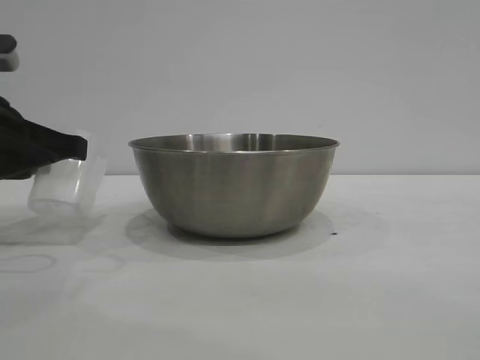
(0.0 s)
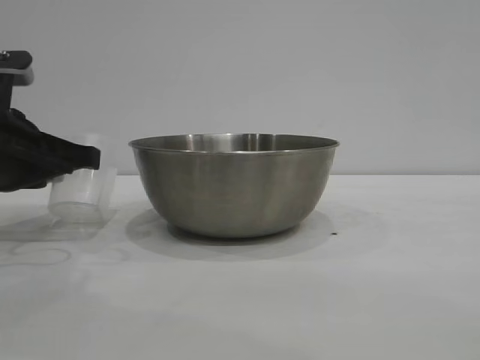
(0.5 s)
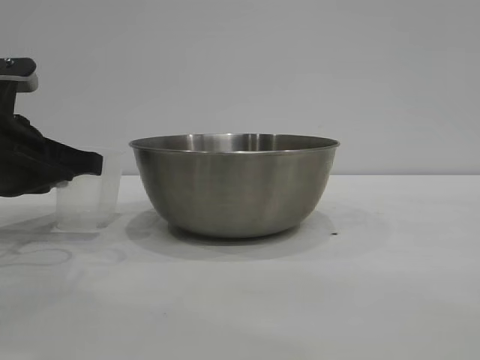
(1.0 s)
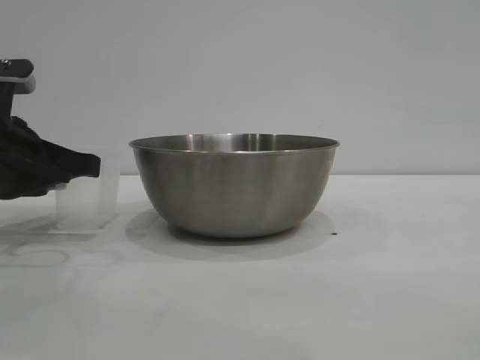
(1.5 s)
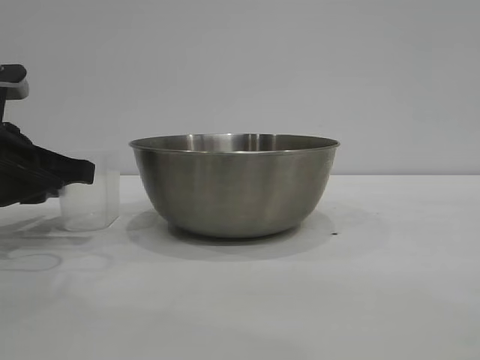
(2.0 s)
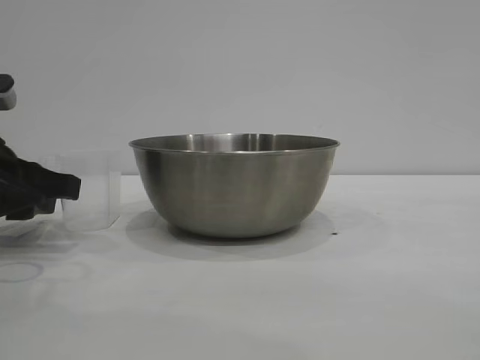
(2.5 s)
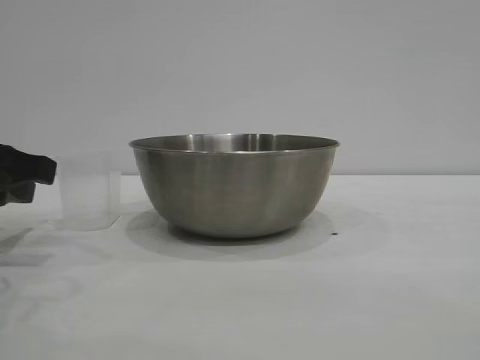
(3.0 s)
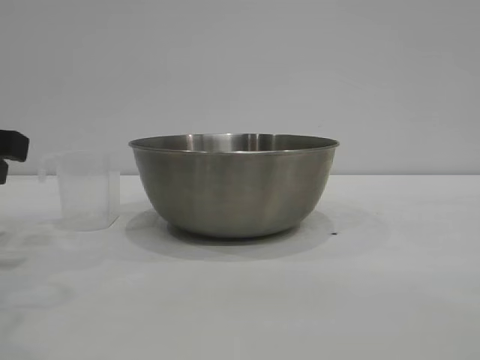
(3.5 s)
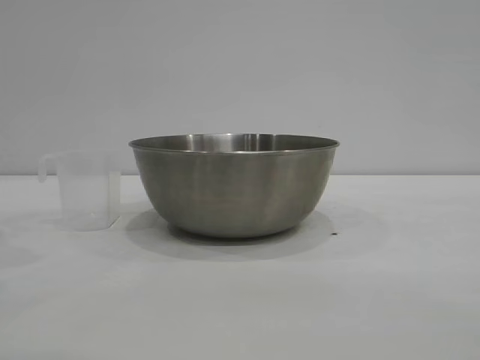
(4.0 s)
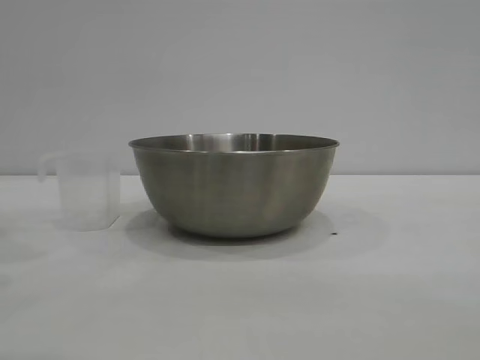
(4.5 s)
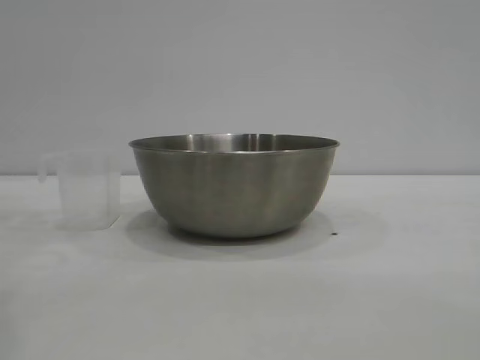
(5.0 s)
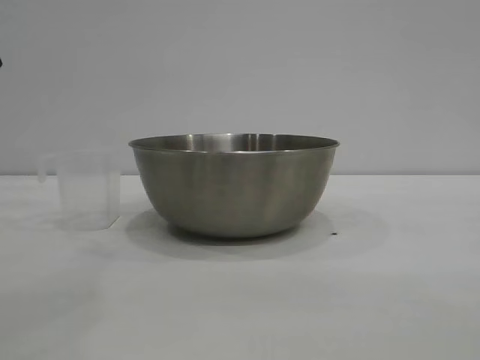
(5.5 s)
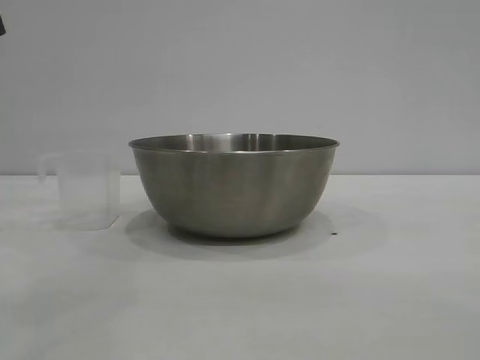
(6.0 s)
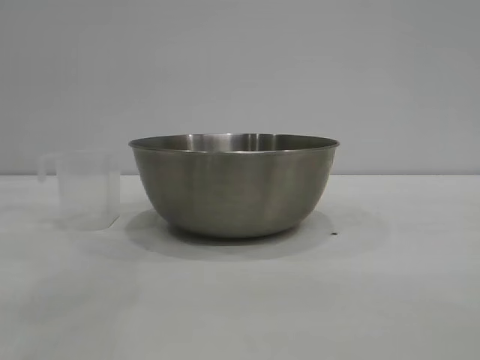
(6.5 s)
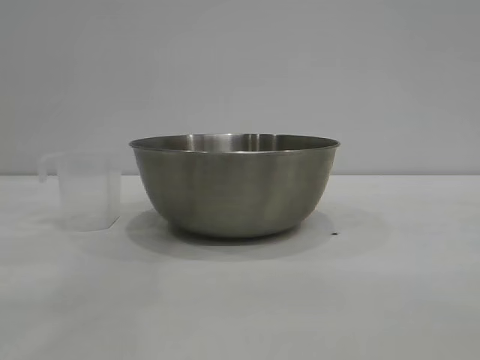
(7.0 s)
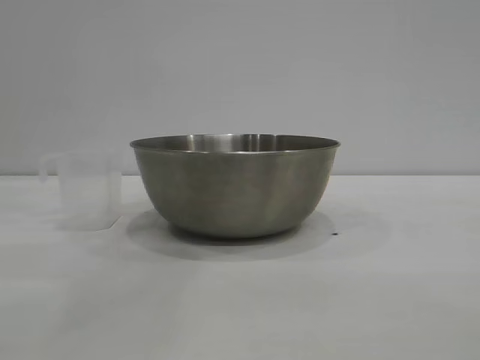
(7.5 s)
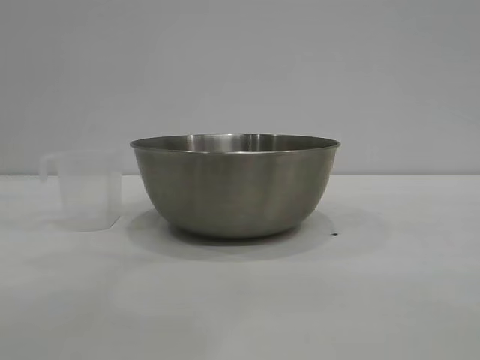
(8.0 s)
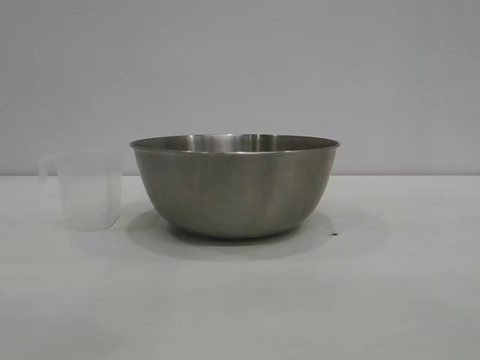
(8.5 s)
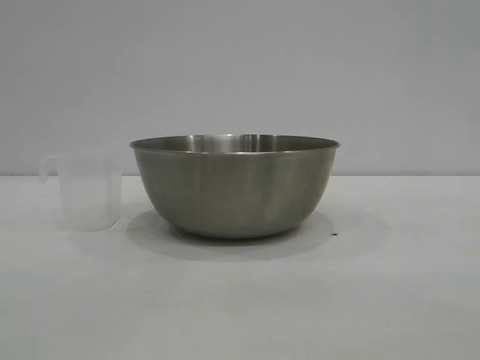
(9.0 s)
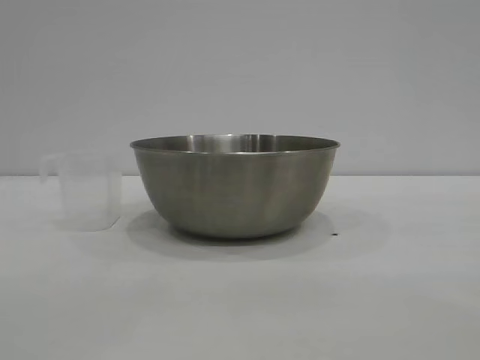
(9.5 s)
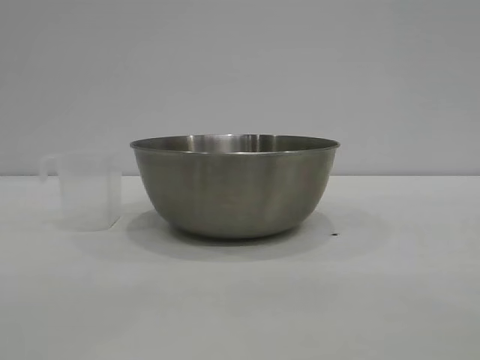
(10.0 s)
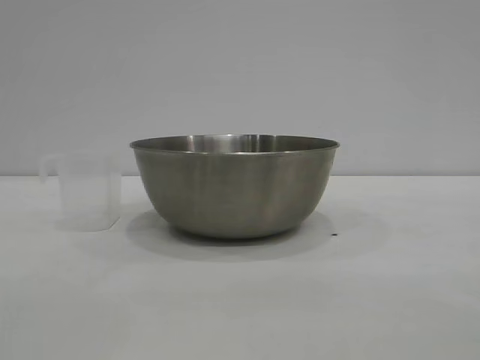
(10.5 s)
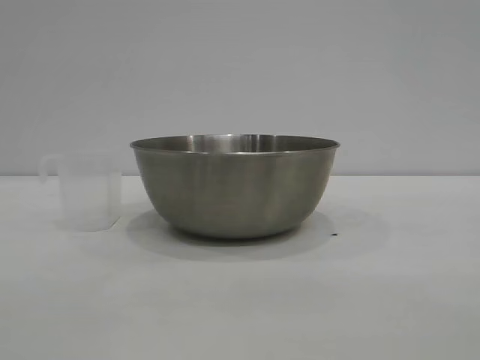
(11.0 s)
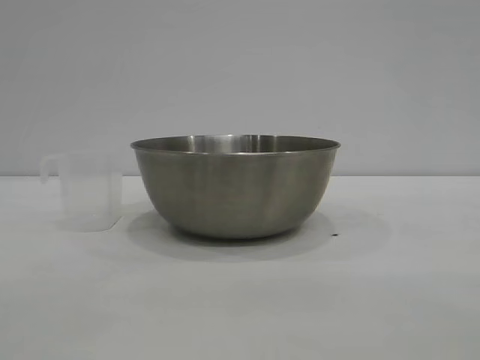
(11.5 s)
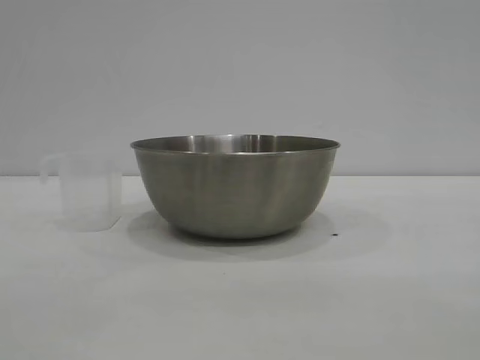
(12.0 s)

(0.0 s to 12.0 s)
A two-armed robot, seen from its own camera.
Task of the whole recording: the right gripper grasp the rice container and place it in the center of the table, the left gripper grasp the rice scoop and pour the rice into the rice container.
Step, 0.0 s - 3.0 s: Place the cup on the table with the left gripper.

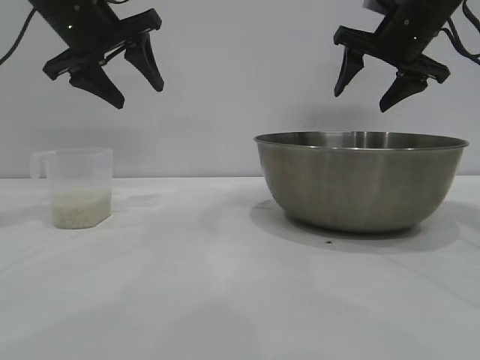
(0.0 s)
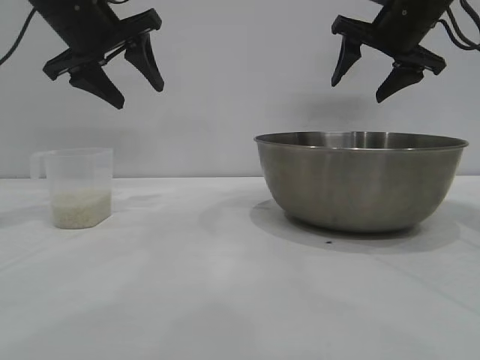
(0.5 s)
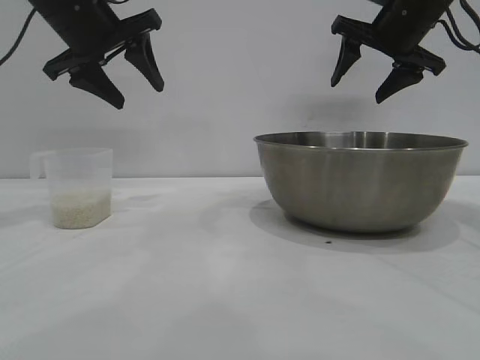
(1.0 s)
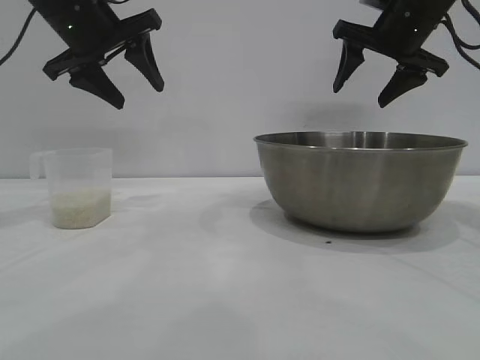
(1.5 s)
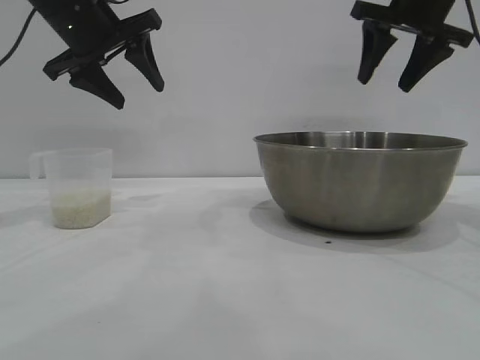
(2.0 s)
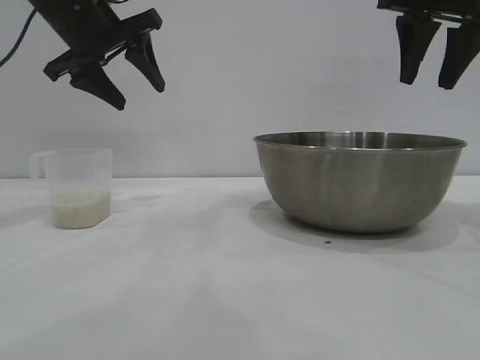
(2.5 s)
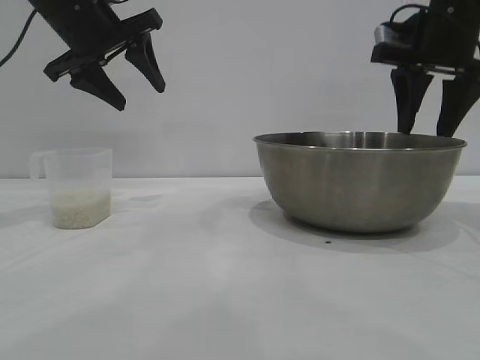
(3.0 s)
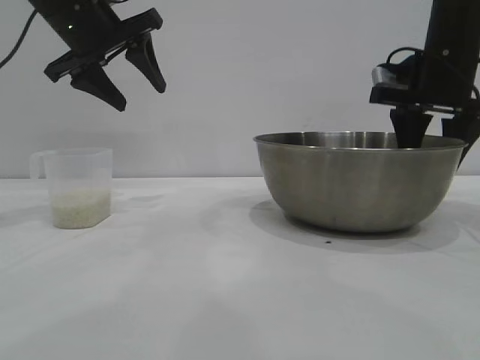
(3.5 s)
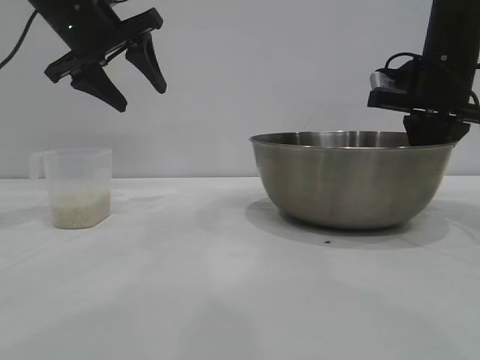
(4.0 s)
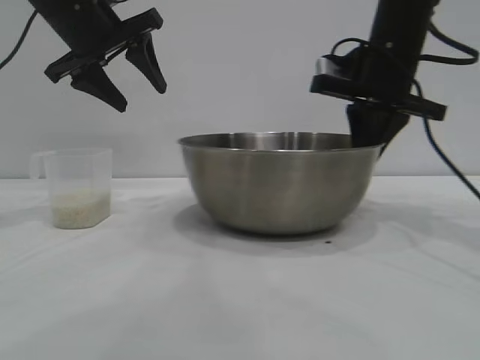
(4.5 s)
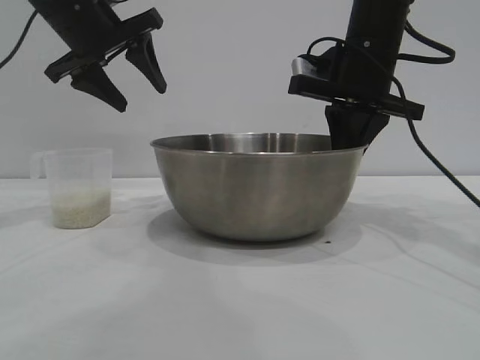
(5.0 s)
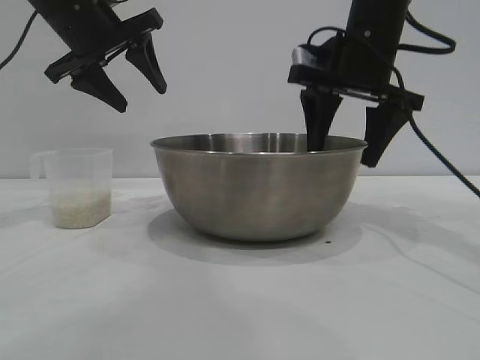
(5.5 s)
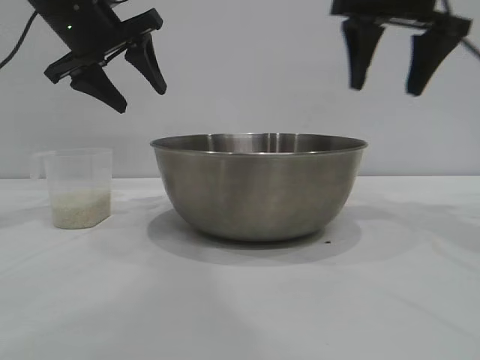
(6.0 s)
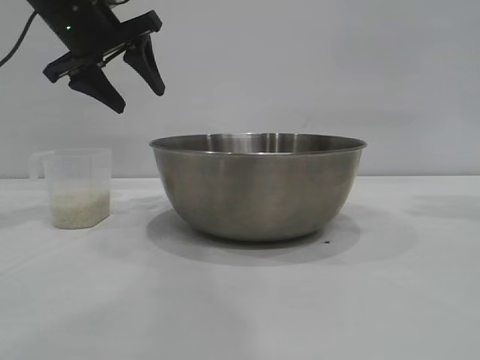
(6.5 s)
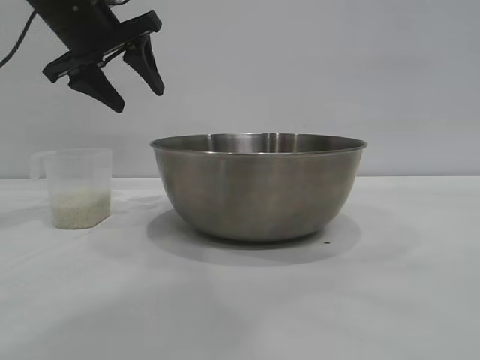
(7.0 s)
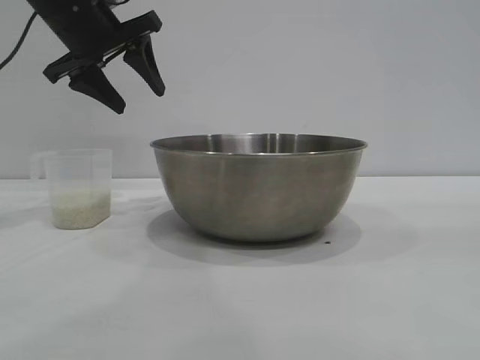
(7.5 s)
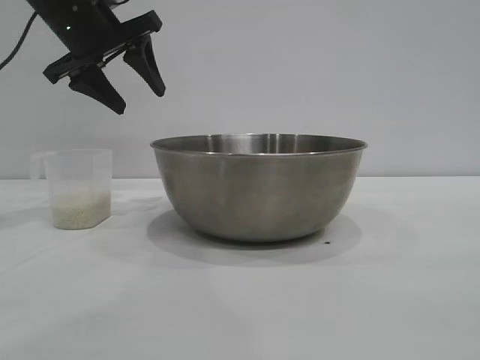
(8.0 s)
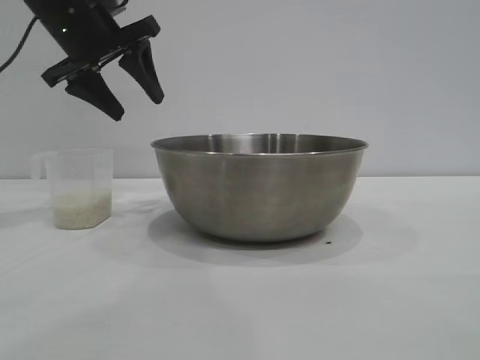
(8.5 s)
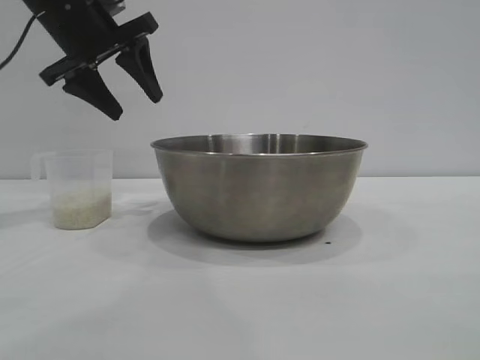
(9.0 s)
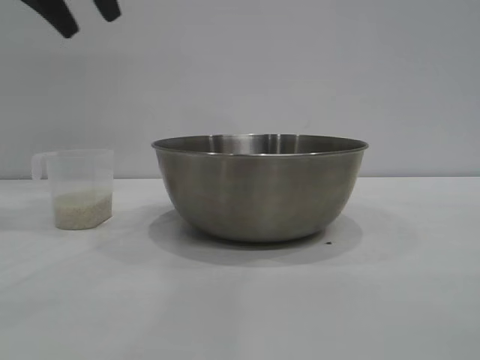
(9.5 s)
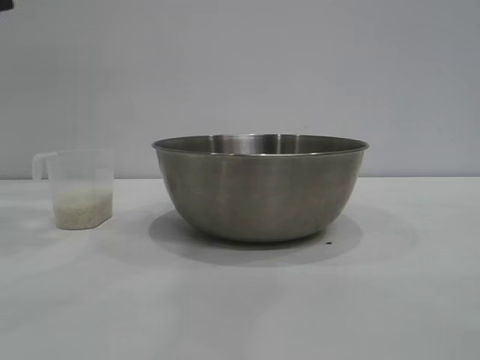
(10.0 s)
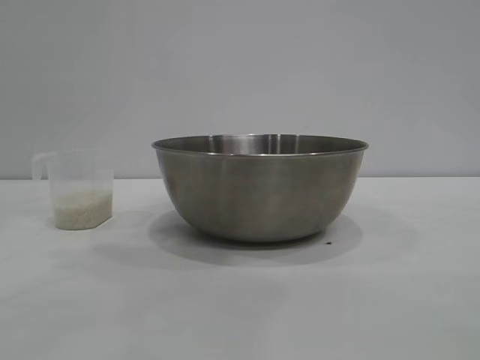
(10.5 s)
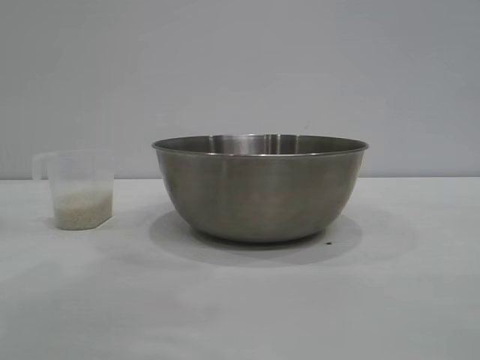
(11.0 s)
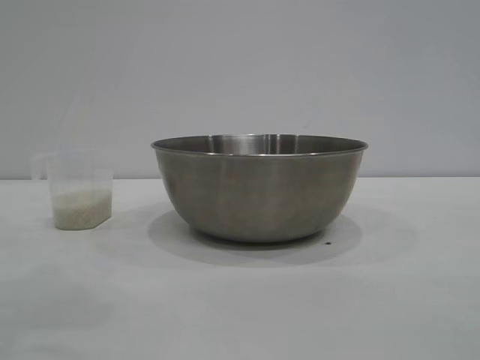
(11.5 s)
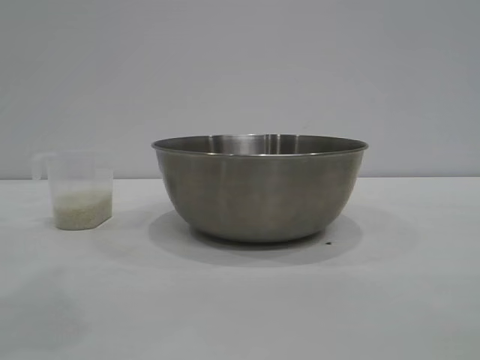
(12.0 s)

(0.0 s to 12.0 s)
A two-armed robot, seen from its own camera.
Task of the whole recording: the right gripper grasp the rice container and place it in the center of the table, the left gripper grasp the rice scoop and pour the rice into the rice container.
Step, 0.0 s - 5.5 s: Move the bowl to the center of view with the right gripper.

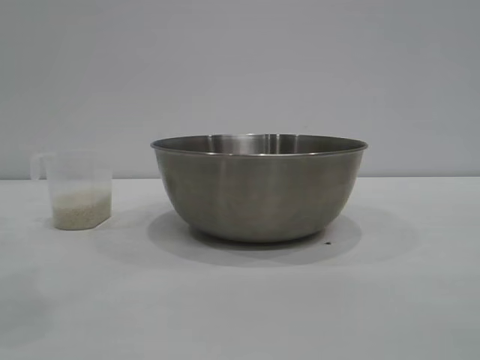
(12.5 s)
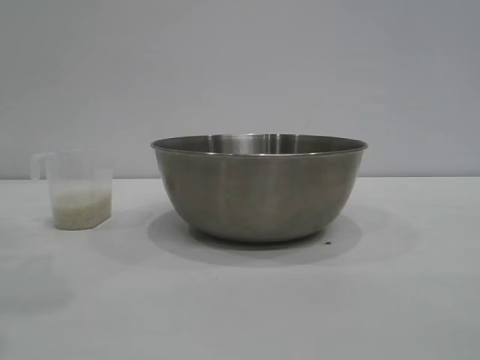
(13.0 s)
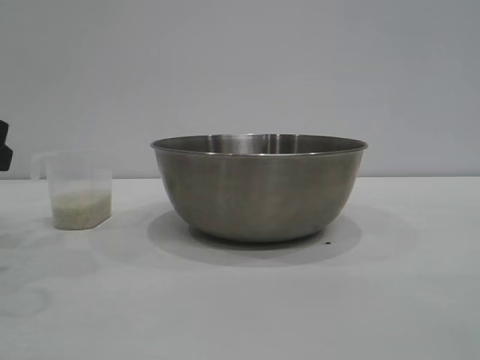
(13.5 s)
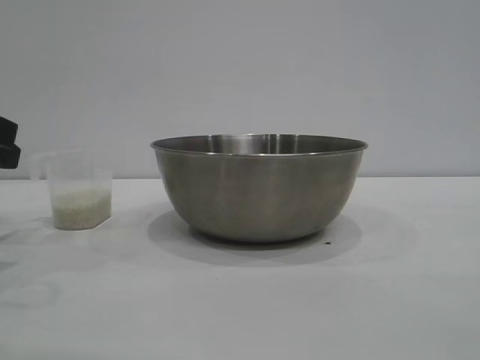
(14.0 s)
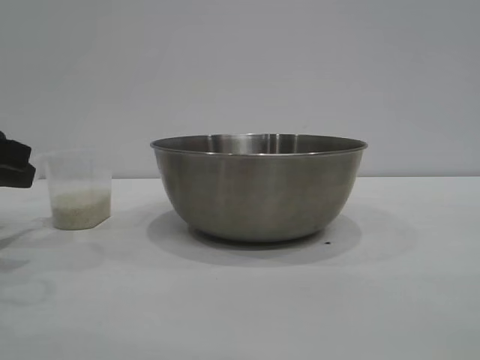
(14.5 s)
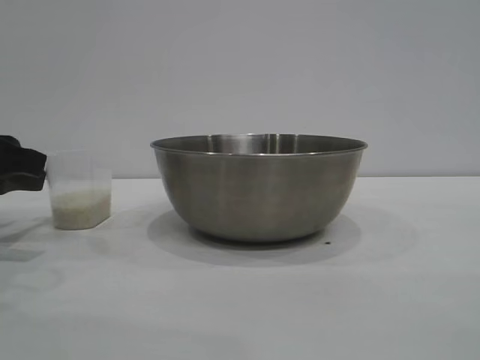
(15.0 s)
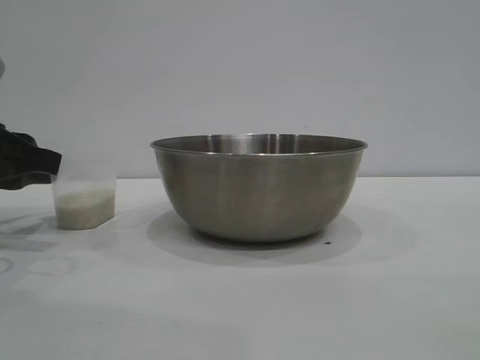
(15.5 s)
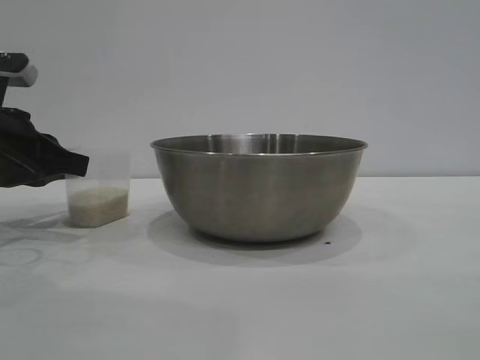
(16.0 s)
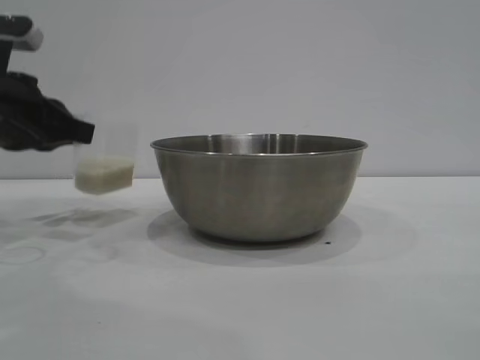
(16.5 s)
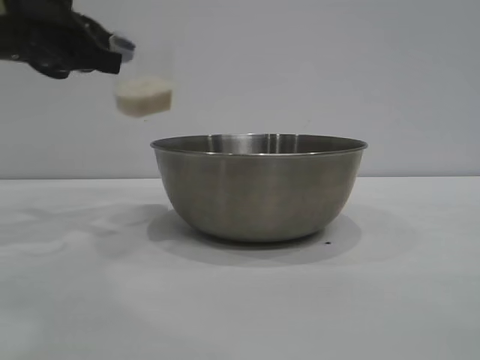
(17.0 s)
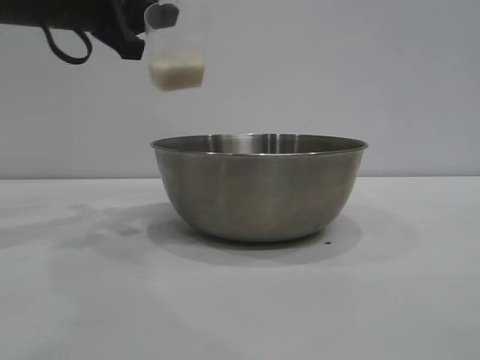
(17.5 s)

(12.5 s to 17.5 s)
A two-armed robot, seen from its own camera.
Task of the whole recording: the right gripper grasp the rice container and place it in the center of the table, the left gripper grasp the rice scoop and pour the rice into the rice container.
Step, 12.5 s - 16.5 s: Pick up the cup with rice in it with the left gripper.
